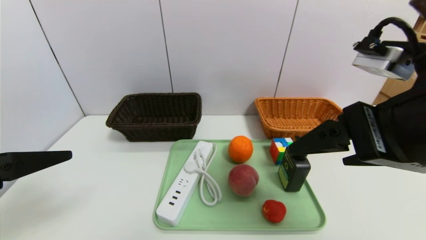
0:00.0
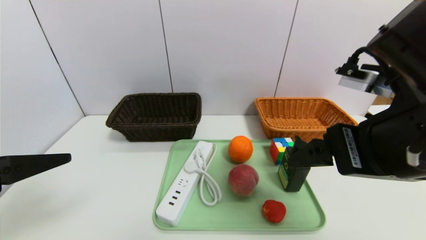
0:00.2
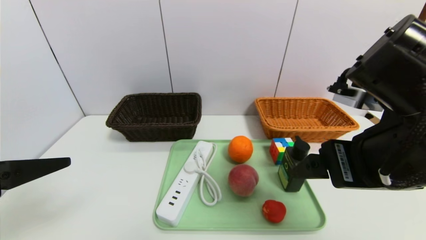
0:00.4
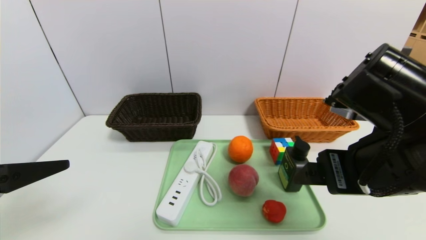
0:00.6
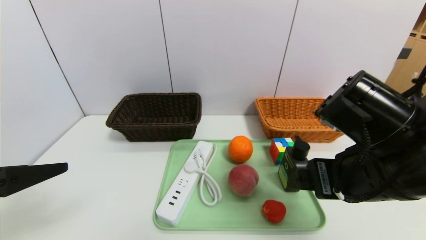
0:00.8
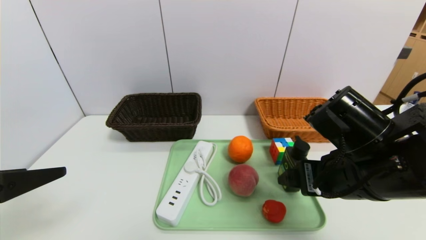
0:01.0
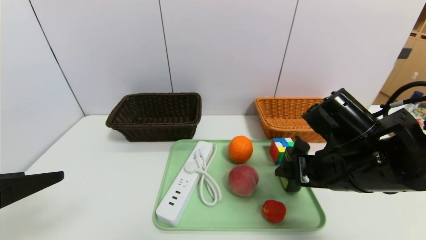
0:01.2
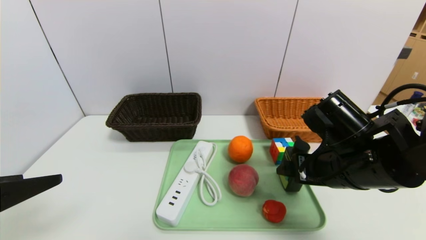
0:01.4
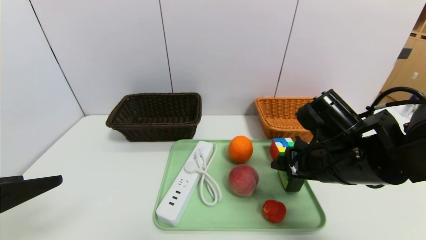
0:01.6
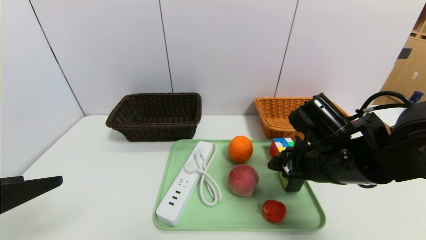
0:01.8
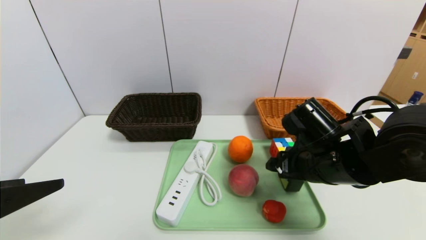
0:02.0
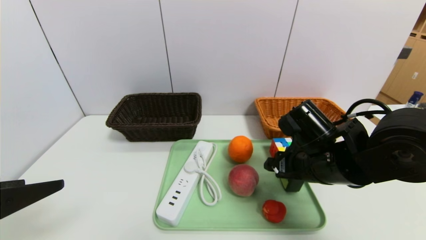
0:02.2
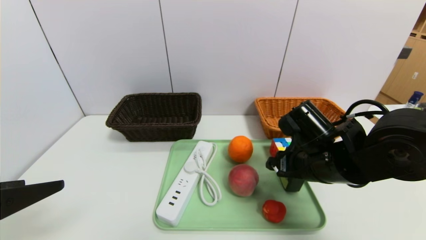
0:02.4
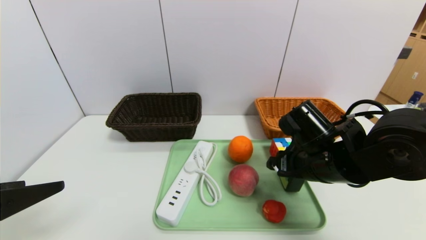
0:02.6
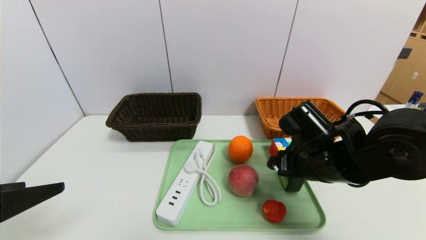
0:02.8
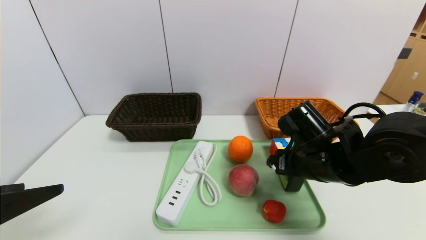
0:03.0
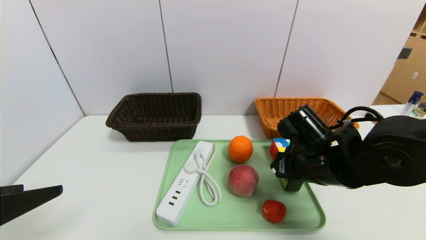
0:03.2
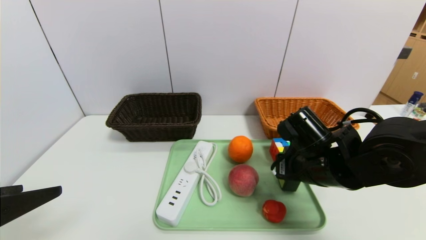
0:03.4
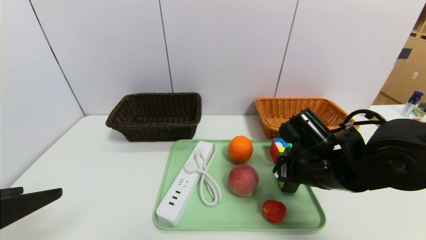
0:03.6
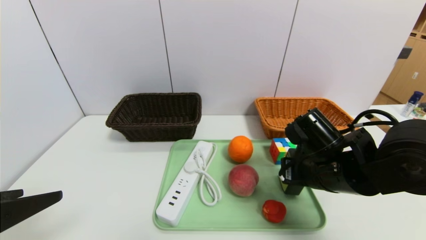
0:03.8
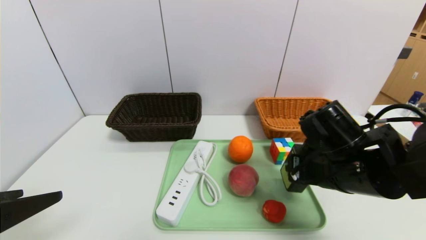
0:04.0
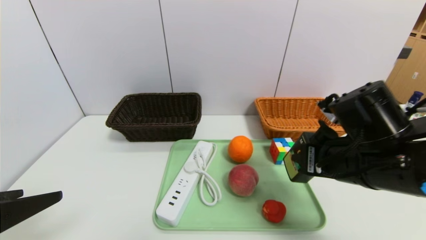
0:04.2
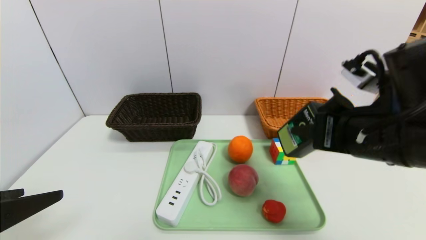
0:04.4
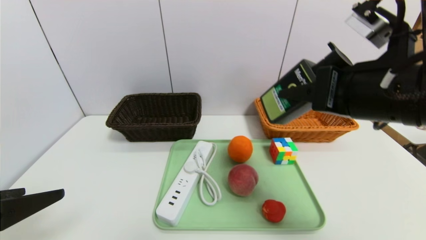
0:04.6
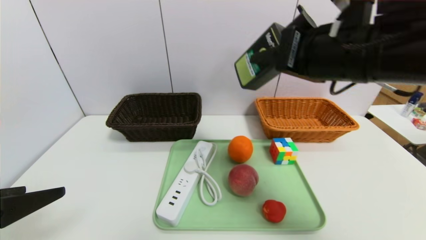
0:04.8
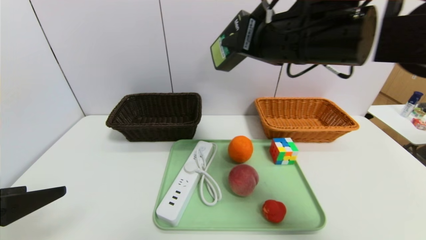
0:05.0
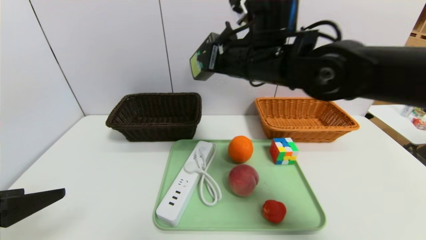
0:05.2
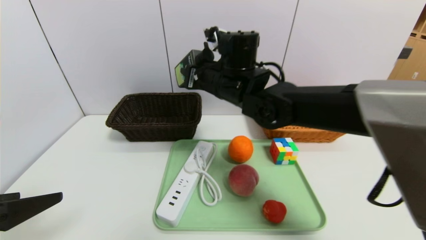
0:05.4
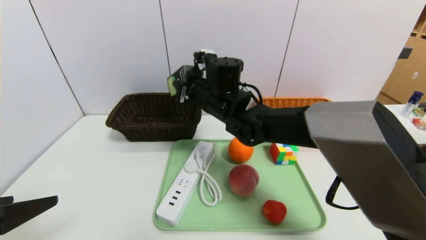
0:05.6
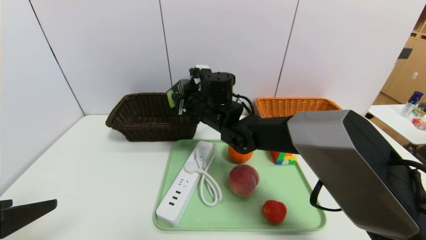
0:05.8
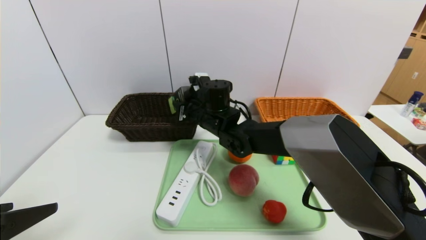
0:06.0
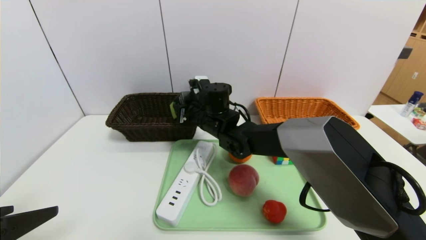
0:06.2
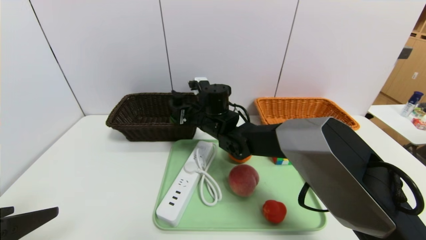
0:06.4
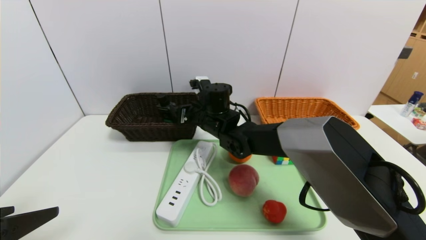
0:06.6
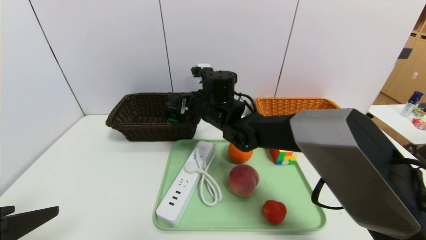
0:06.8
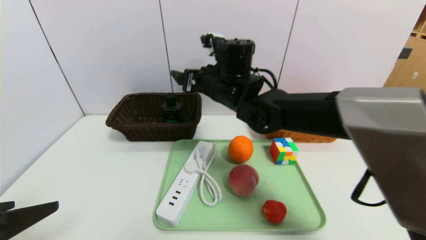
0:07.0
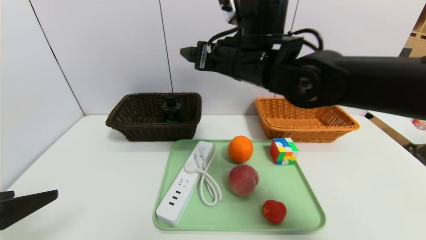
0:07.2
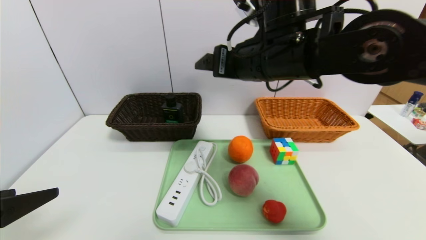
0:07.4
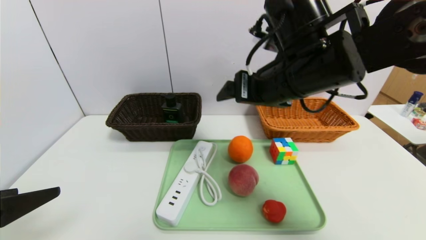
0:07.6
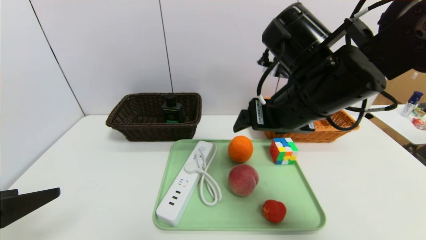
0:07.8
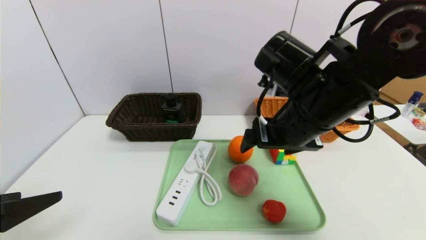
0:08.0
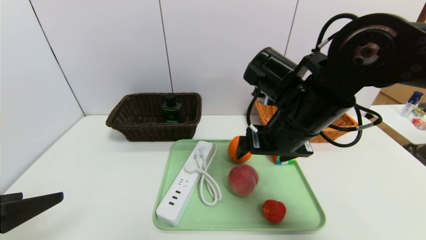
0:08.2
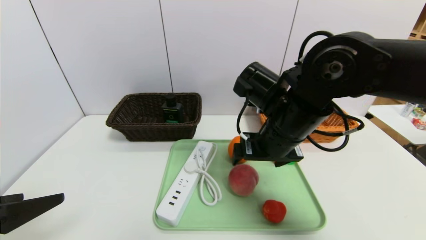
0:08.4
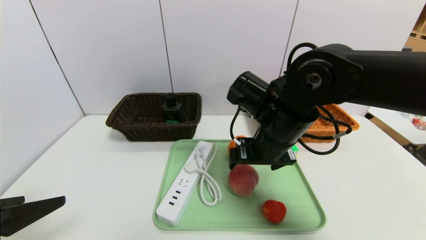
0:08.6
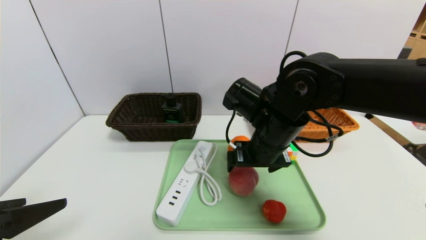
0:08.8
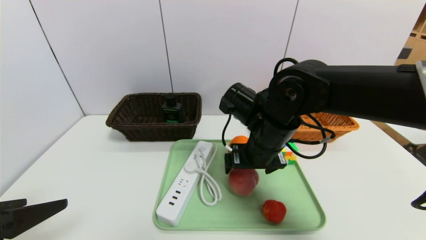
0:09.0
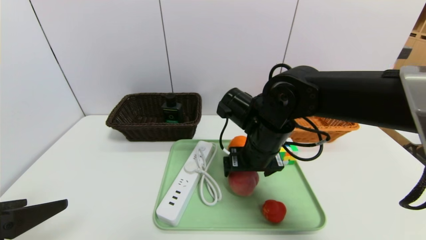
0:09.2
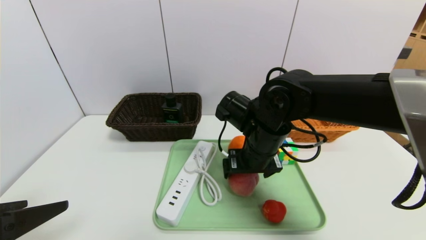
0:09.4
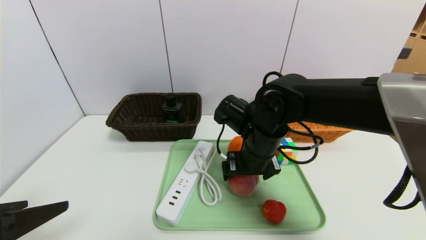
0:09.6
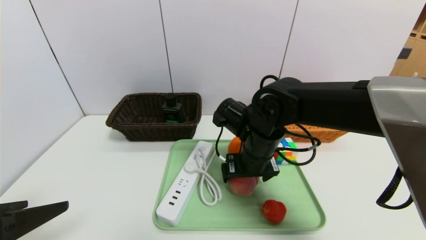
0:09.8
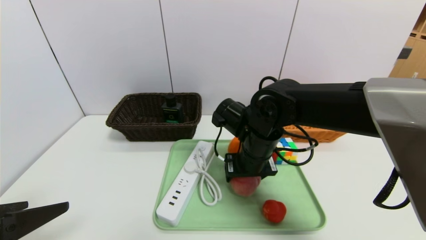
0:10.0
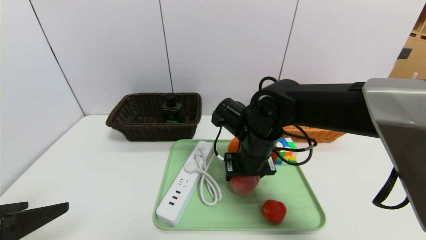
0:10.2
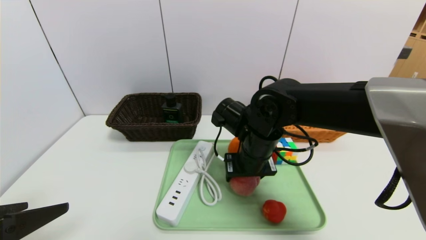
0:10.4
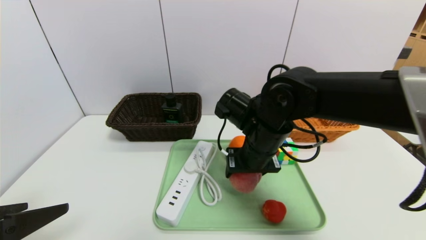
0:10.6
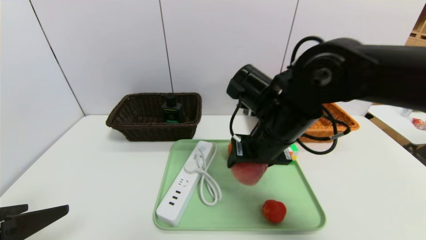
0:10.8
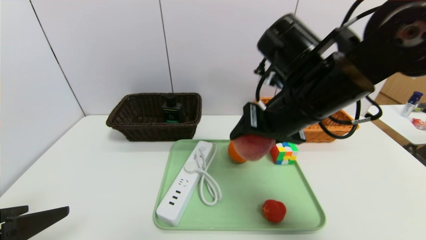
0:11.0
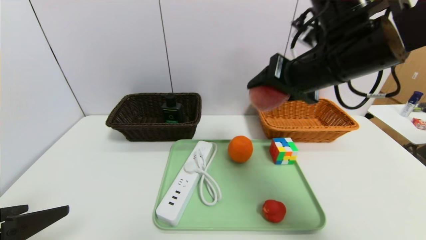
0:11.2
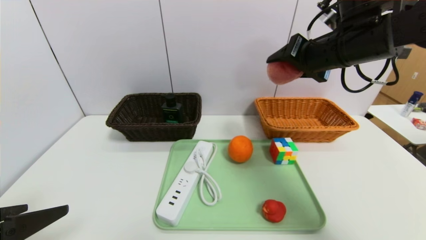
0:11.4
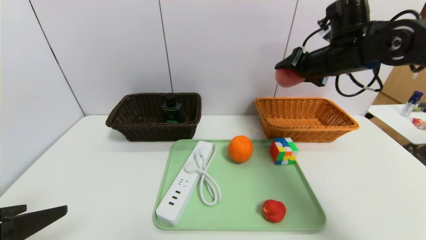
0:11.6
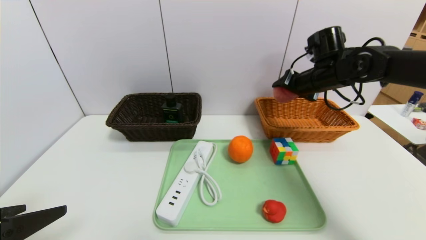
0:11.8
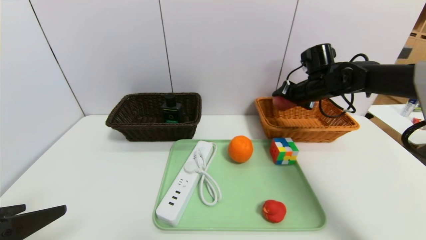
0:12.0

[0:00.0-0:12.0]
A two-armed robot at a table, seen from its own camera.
Task of the whole recording: place the food in the right basket with the right gripper, and place the non food items in the left basket with the left gripper.
0:00.0 to 0:01.6: The right gripper shifts about 15 cm downward and forward.
0:01.6 to 0:03.0: There are only small adjustments of the grippers.
0:03.0 to 0:04.4: The right gripper moves upward and backward, some 10 cm, and closes.
0:04.4 to 0:06.0: The right gripper travels to the left, forward and downward by about 30 cm.
0:06.0 to 0:07.6: The right gripper moves upward, backward and to the right, some 25 cm, and opens up.
0:07.6 to 0:09.0: The right gripper travels downward by about 10 cm.
0:09.0 to 0:10.4: The right gripper closes its fingers.
0:10.4 to 0:12.0: The right gripper is displaced to the right and forward by roughly 25 cm.

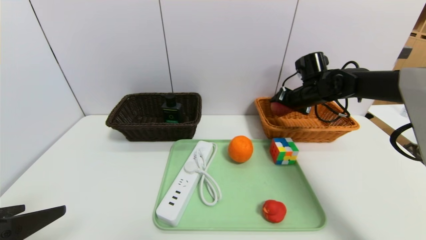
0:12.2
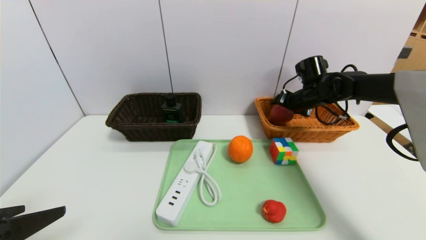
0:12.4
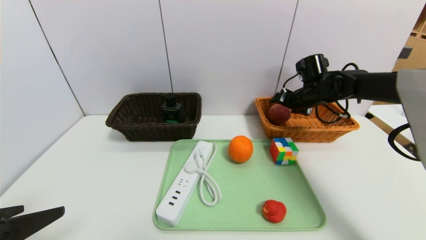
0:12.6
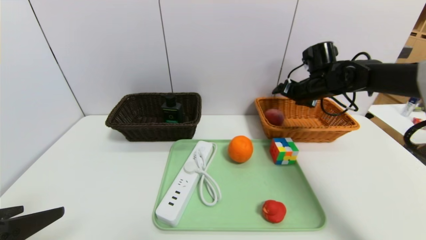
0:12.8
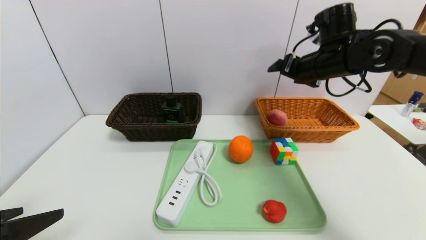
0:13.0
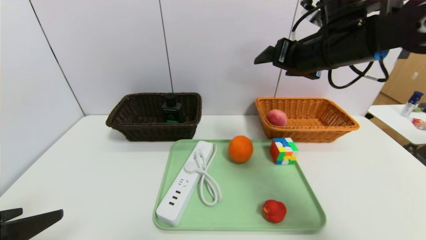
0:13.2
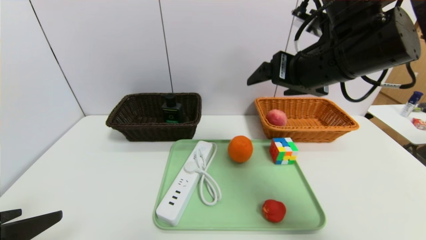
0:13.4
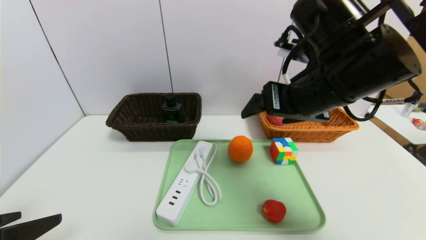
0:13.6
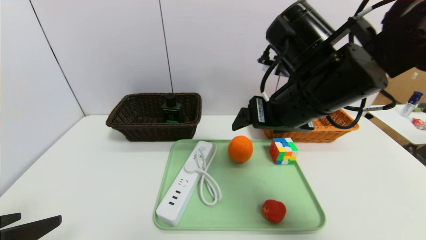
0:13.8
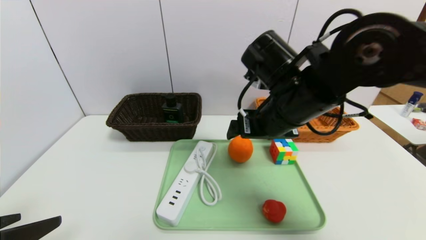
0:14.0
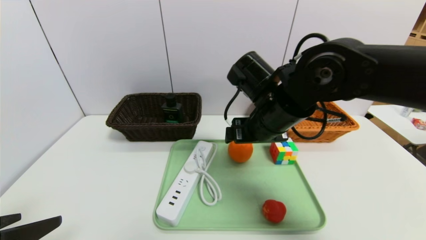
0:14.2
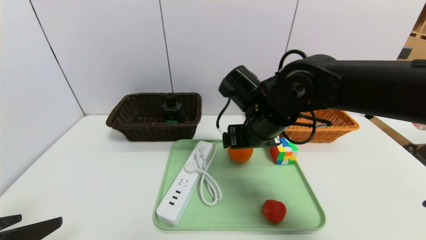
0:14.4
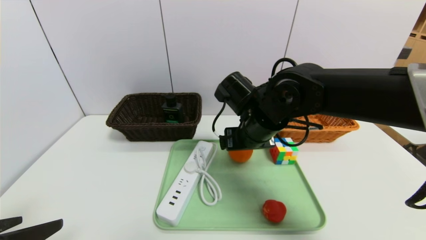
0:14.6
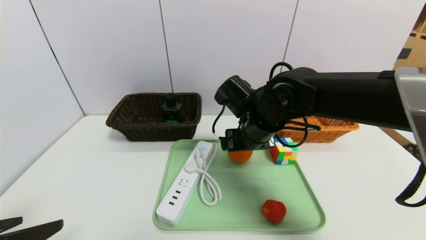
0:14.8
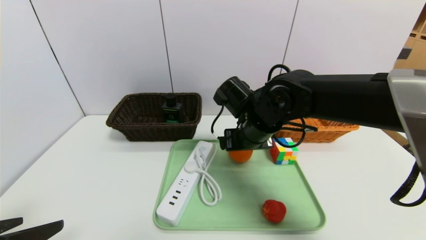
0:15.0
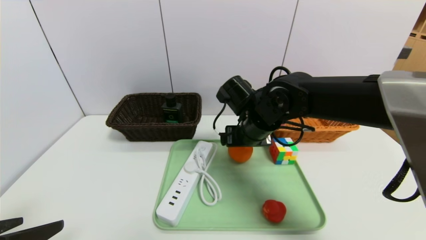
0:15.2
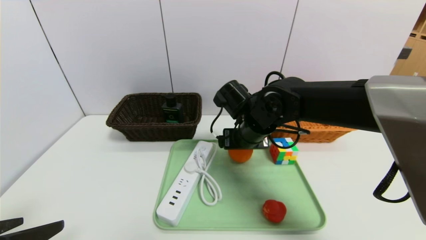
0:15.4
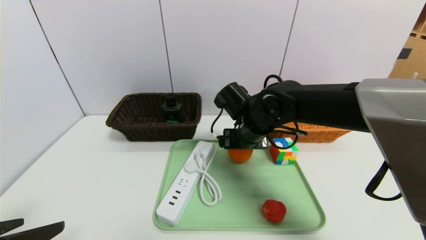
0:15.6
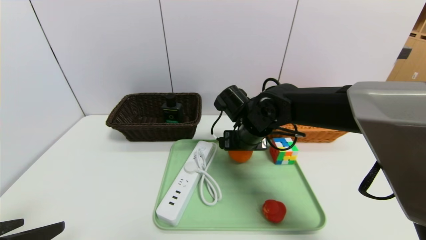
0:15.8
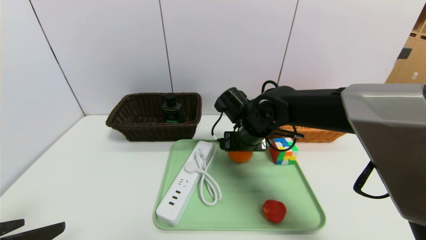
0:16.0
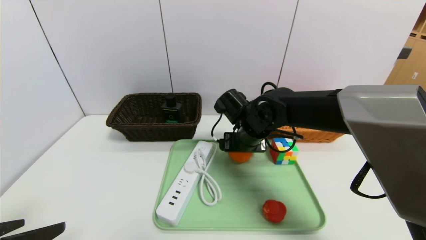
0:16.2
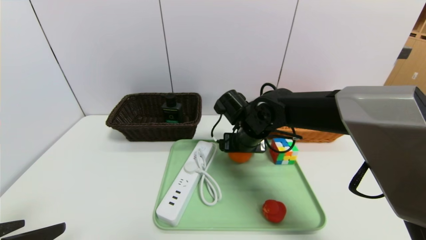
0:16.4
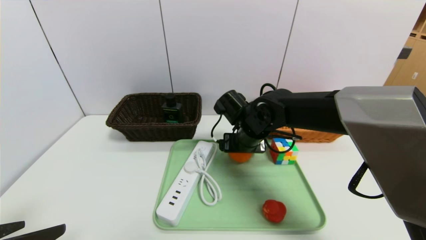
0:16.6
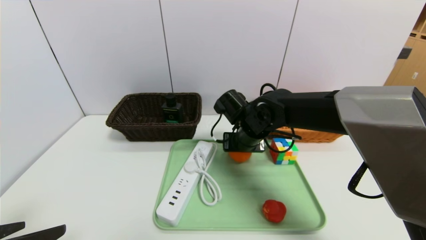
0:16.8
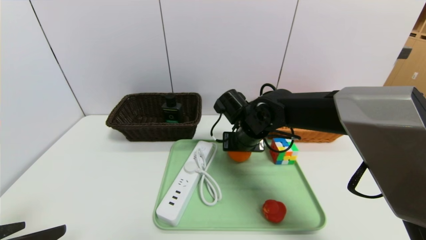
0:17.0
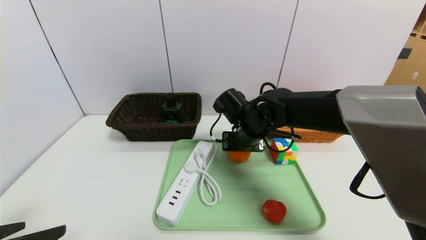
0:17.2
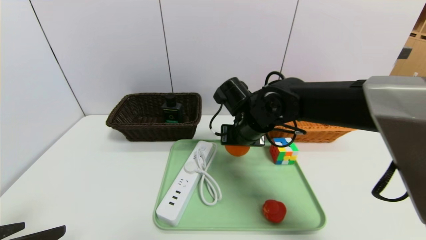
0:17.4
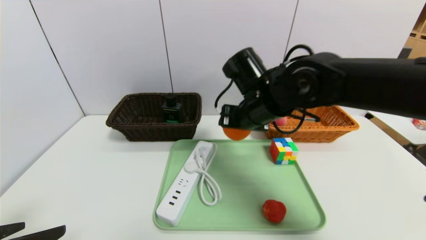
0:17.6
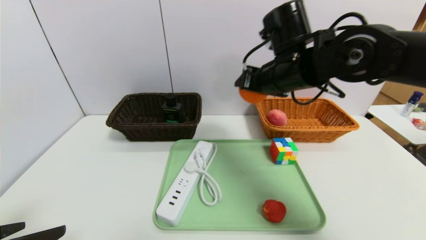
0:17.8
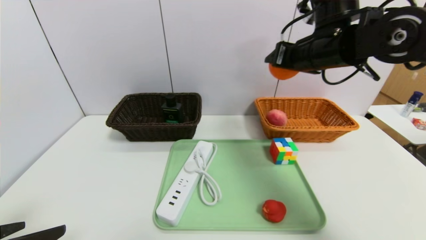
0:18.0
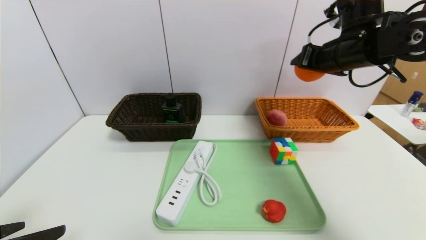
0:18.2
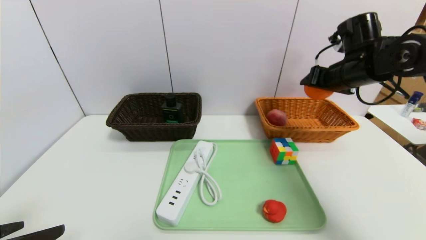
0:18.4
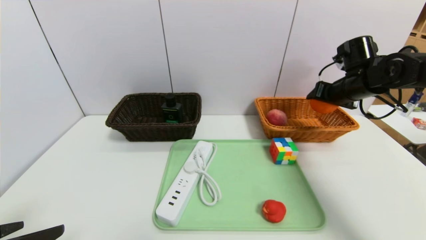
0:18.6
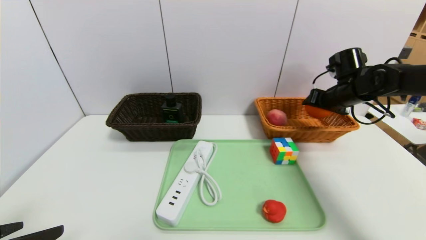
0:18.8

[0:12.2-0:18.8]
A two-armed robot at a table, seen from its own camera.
Task of the whole recording: place the food in the right basket with the right gripper, and place the non food items in the left basket with the left gripper.
0:12.2 to 0:13.8: The right gripper shifts about 25 cm backward, to the left and upward, and opens up.
0:13.8 to 0:15.4: The right gripper heads downward, forward and to the left, covering roughly 15 cm.
0:15.4 to 0:17.2: The right gripper closes up.
0:17.2 to 0:18.8: The right gripper travels to the right by approximately 25 cm.
